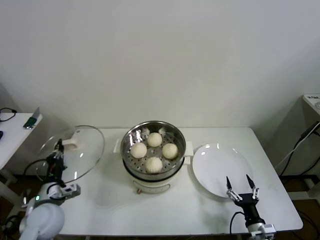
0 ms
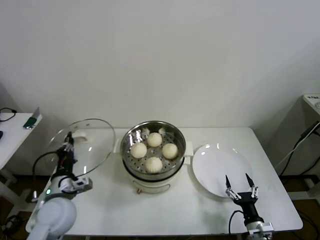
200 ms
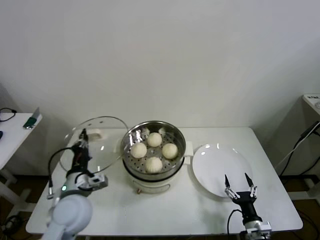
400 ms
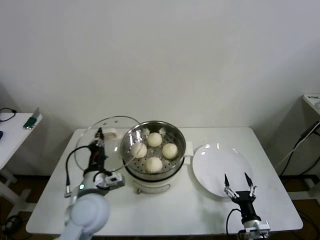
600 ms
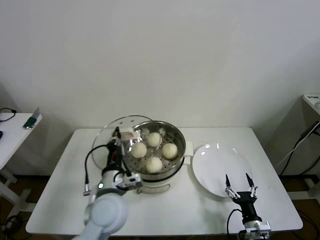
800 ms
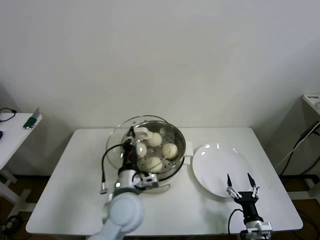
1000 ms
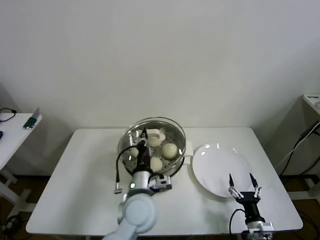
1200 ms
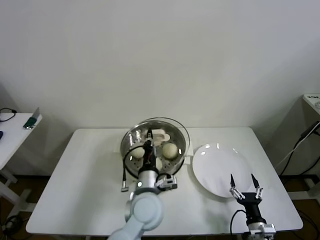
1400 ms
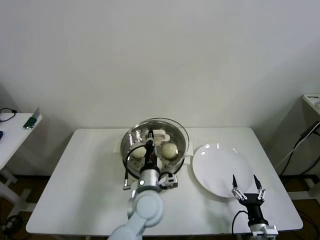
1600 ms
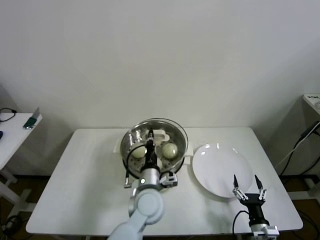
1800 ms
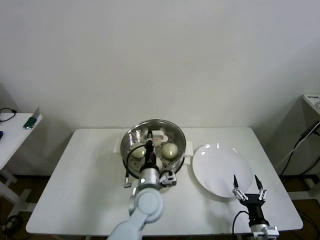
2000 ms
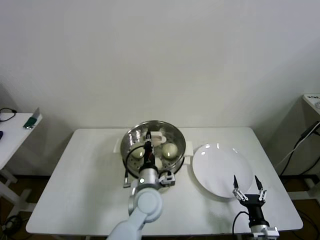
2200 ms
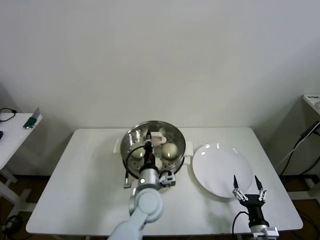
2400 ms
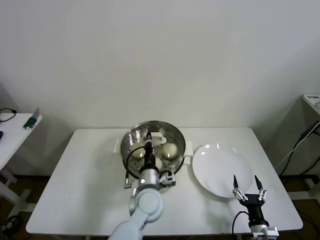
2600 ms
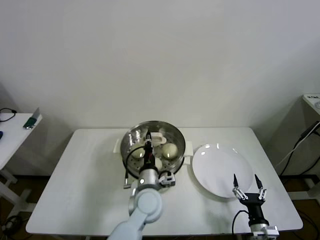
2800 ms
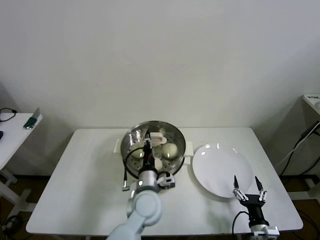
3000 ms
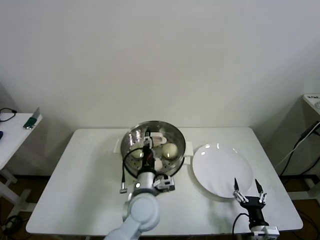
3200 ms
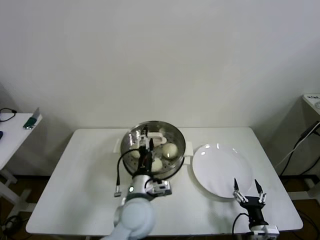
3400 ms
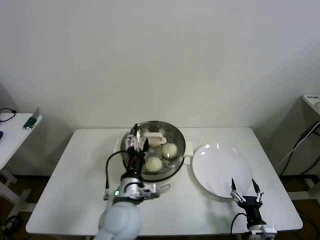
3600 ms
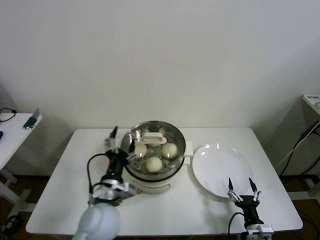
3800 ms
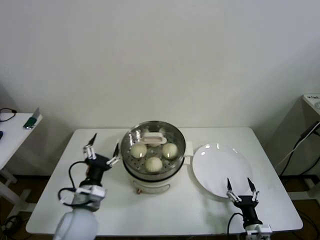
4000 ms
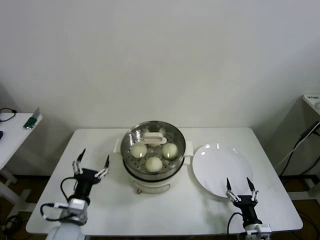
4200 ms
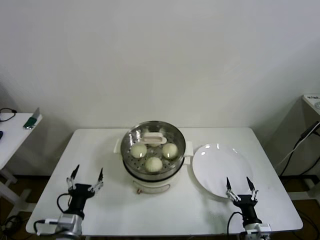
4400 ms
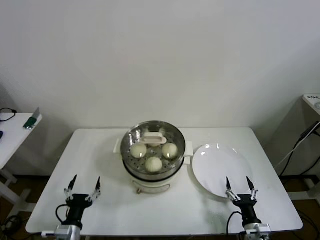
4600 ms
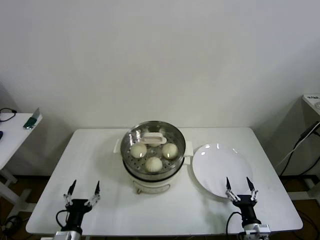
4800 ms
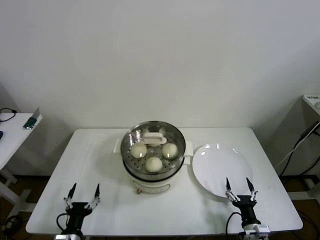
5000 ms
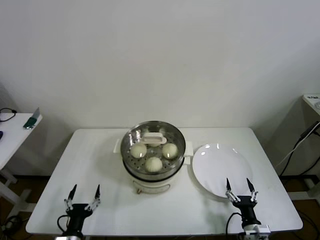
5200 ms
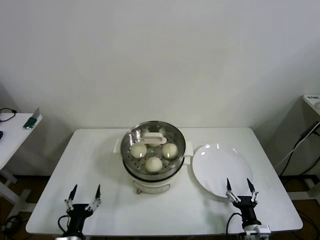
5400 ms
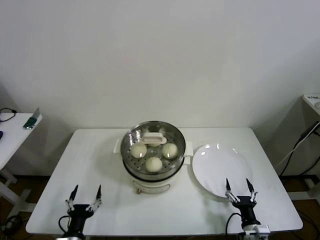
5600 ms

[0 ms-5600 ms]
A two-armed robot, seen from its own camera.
Step, 0 ms to 2800 ms: Place the pot lid on the steamer with left gripper.
0 ms to 1400 ms: The left gripper travels to the right by some 30 cm.
1400 ms to 2800 ms: The left gripper moves about 5 cm.
2800 ms to 4200 ms: The left gripper moves to the left and backward, roughly 25 cm, and opens.
4200 ms to 5600 ms: The left gripper heads downward and backward, covering approximately 15 cm.

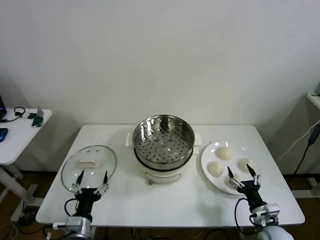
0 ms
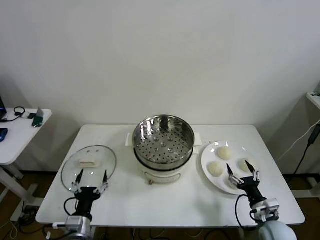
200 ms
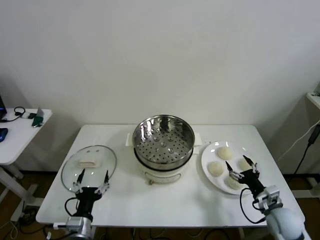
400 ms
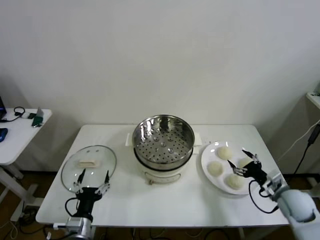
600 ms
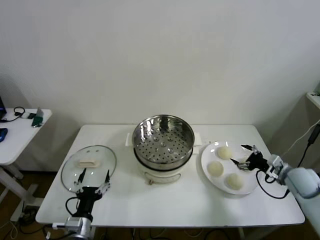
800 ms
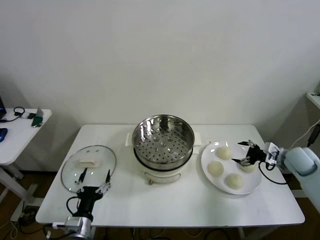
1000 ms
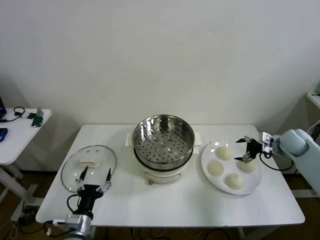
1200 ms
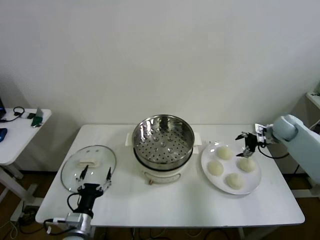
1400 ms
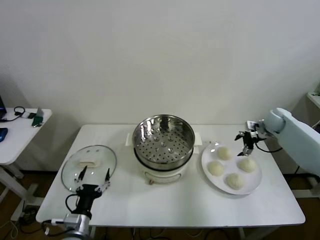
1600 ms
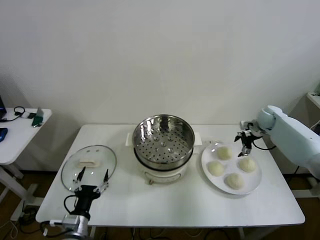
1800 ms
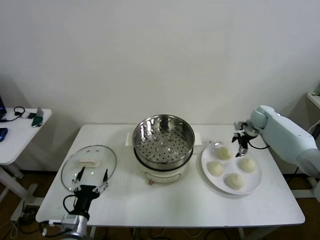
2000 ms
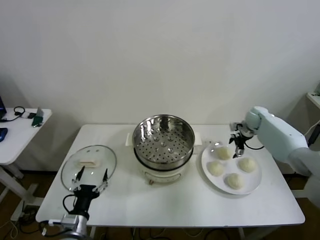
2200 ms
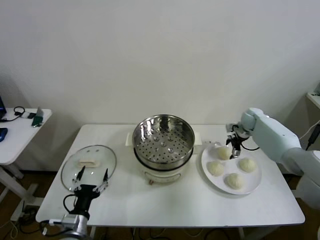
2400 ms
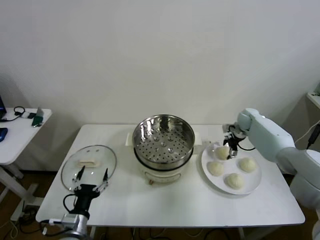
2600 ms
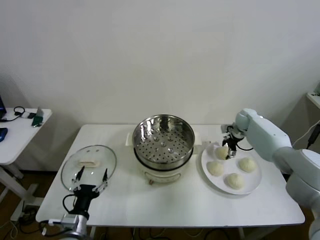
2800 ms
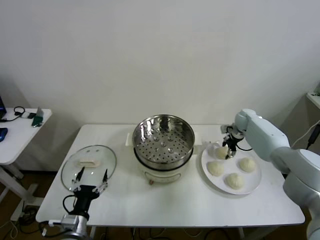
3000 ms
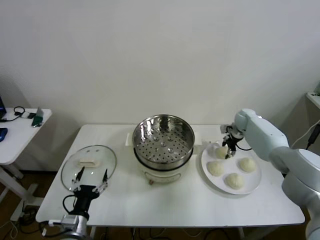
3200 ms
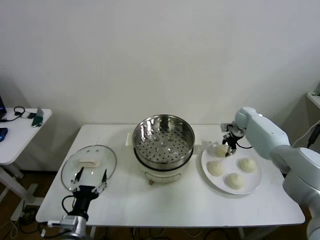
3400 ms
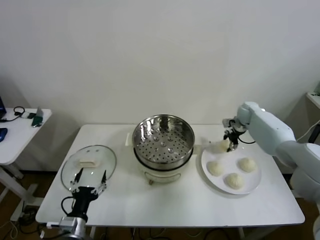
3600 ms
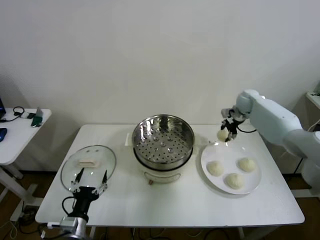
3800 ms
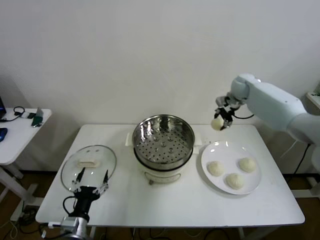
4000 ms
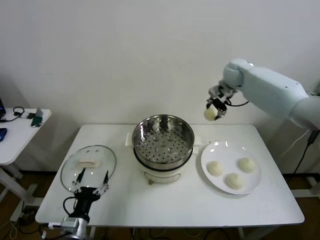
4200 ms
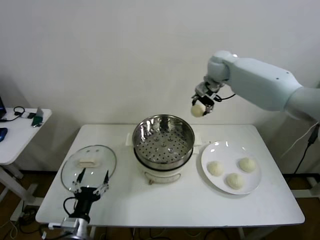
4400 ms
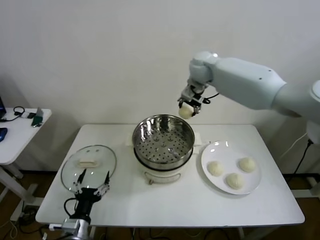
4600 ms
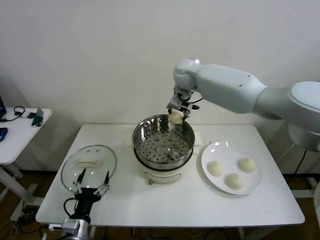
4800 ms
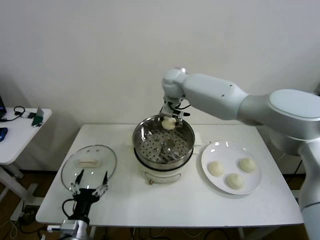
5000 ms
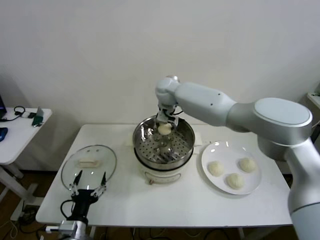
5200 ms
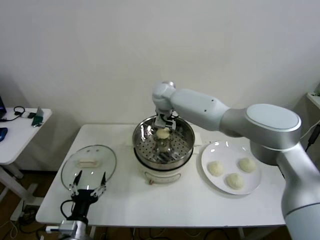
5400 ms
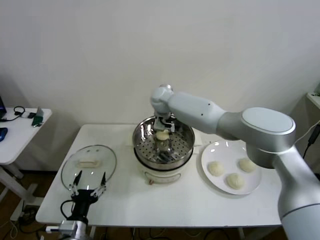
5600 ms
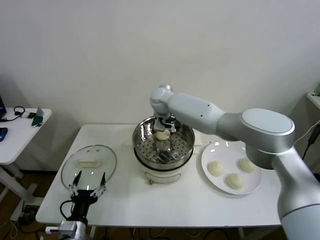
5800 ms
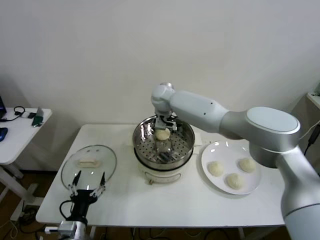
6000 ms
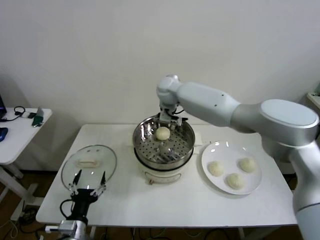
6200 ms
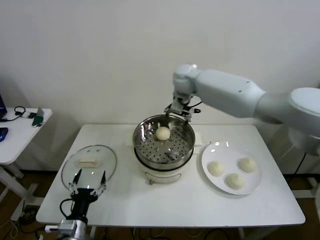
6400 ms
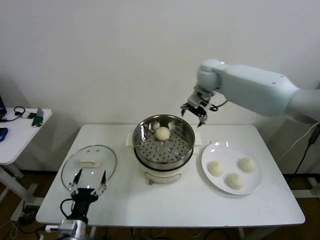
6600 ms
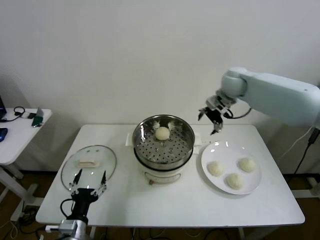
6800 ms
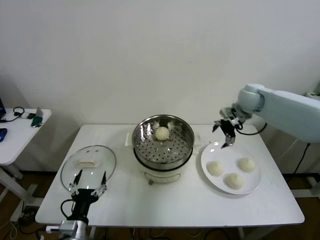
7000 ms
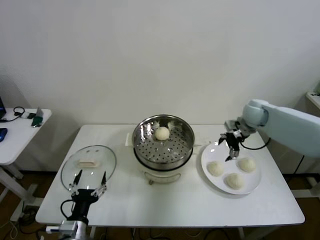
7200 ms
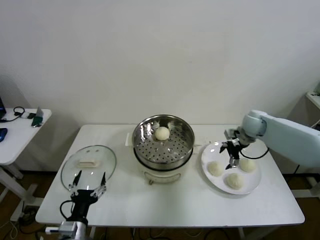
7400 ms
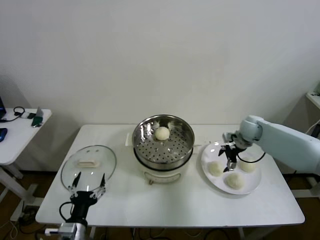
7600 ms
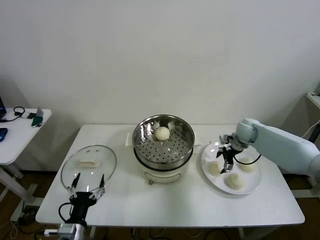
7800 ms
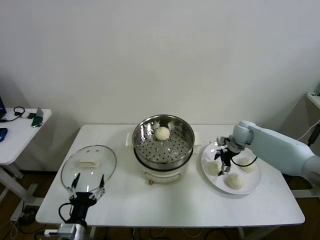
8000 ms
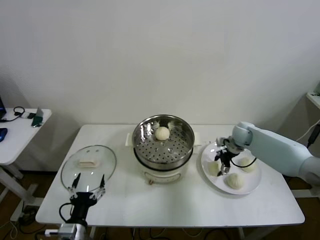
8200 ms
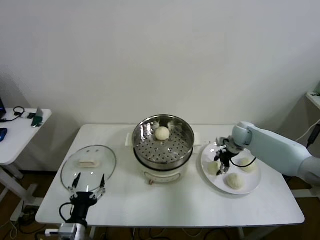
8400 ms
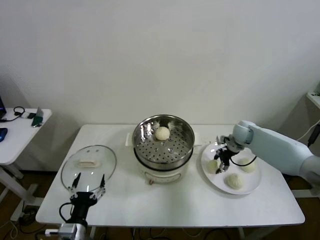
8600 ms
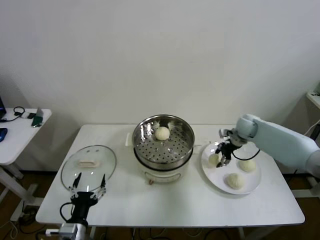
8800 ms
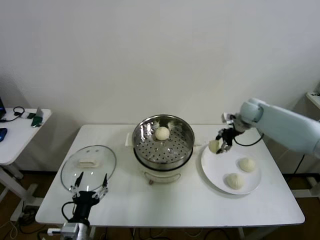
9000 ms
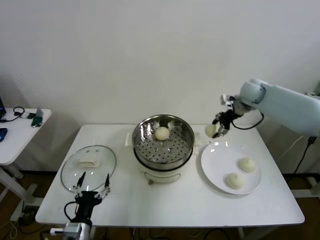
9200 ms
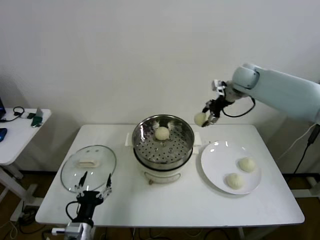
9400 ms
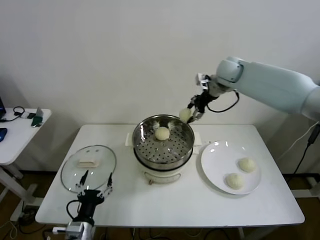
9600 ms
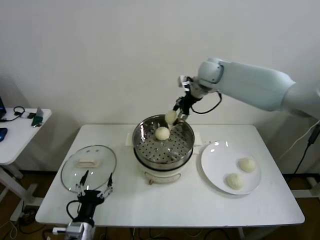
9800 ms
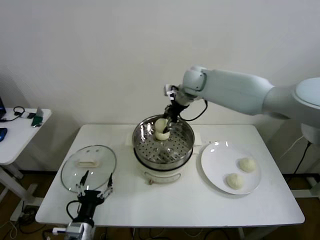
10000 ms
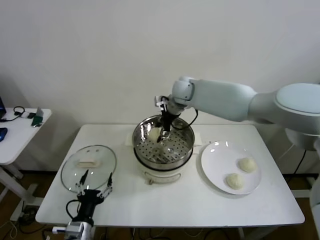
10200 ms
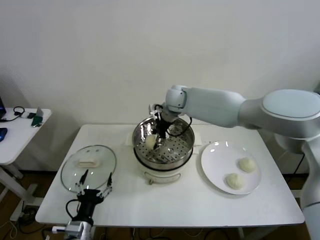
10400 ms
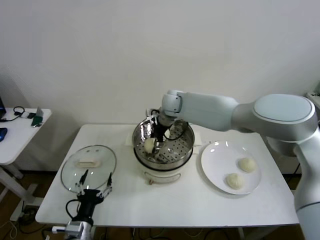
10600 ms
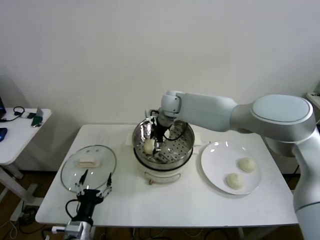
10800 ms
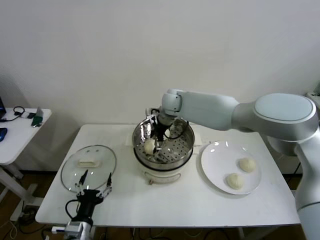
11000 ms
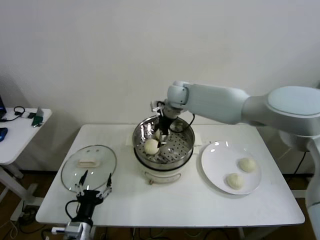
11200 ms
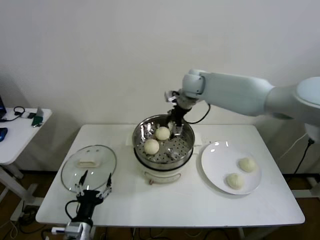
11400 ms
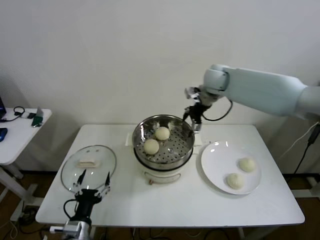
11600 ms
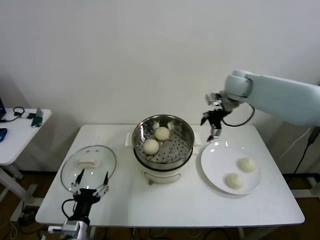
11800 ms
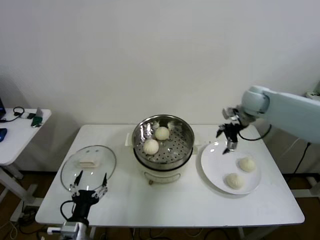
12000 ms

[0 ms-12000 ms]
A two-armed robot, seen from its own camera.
Step, 0 ms to 3000 ms: Grasp the baozi in the plate with right gripper.
Step, 3200 ms to 5800 ms: Place the baozi on the steamer with right gripper.
Step, 6000 ms to 8400 ms: Grasp the baozi in the plate with right gripper.
Step, 8600 ms to 10800 ms: Place the baozi on the steamer with right gripper.
1600 ms to 3000 ms: The right gripper travels to the left by approximately 5 cm, and closes up.
3000 ms to 4400 ms: The right gripper heads upward and to the left, covering some 35 cm.
4400 ms to 6000 ms: The right gripper travels to the left and downward by about 15 cm, and opens.
6000 ms to 7600 ms: The right gripper heads to the right and downward, covering some 35 cm.
7600 ms to 9000 ms: The right gripper shifts approximately 10 cm upward, and closes up.
9000 ms to 10400 ms: The right gripper moves to the left, approximately 30 cm.
10400 ms to 12000 ms: The right gripper is displaced to the right by some 30 cm, and opens.

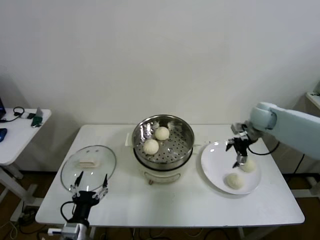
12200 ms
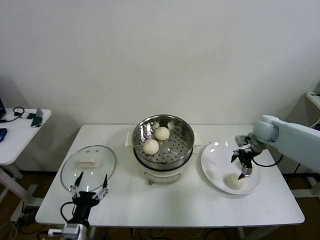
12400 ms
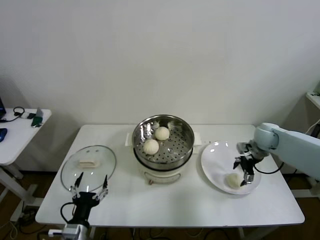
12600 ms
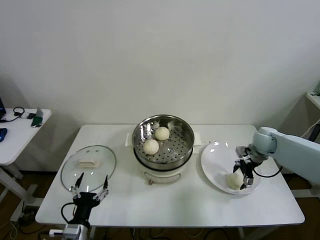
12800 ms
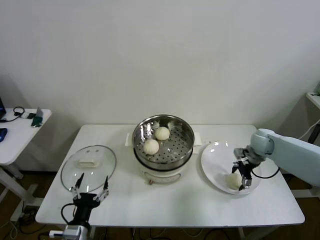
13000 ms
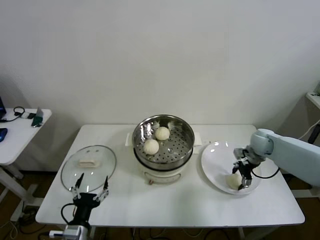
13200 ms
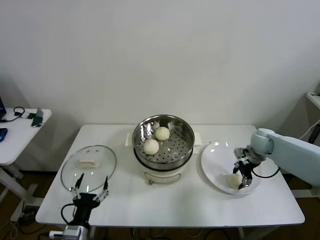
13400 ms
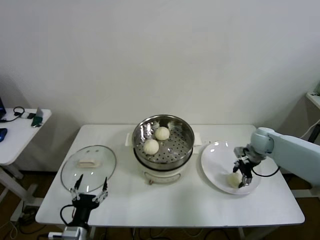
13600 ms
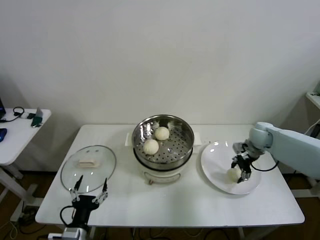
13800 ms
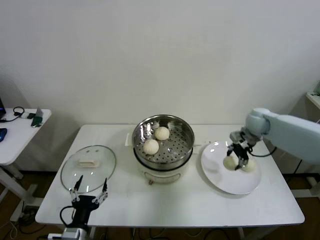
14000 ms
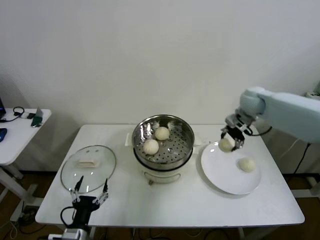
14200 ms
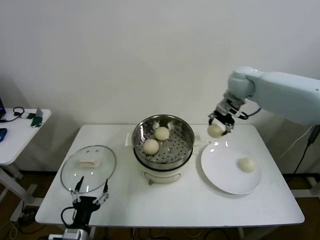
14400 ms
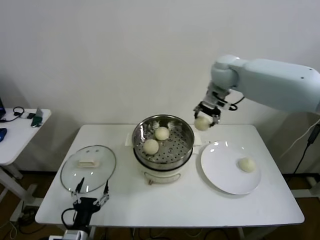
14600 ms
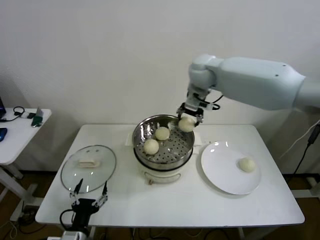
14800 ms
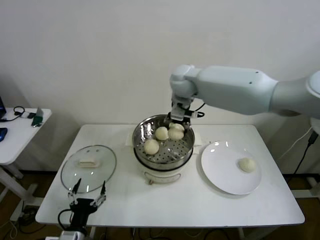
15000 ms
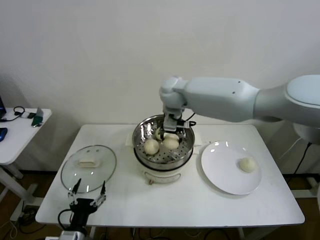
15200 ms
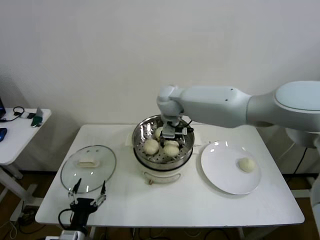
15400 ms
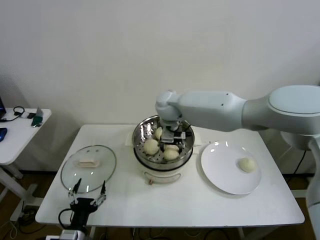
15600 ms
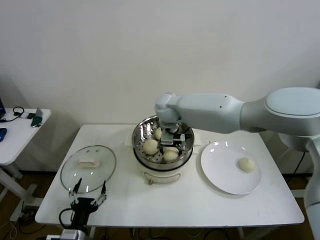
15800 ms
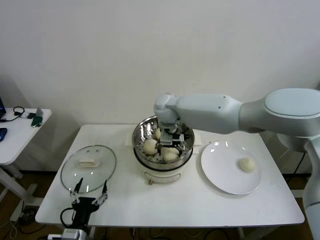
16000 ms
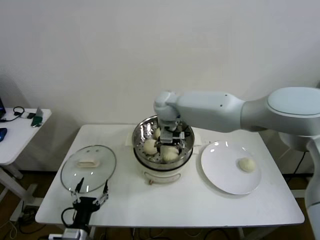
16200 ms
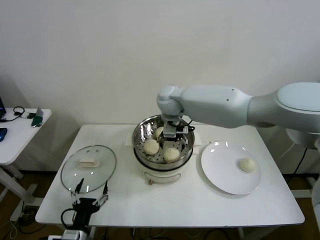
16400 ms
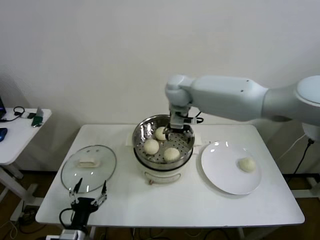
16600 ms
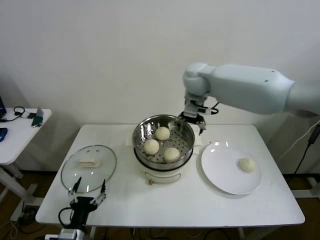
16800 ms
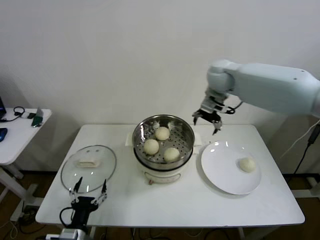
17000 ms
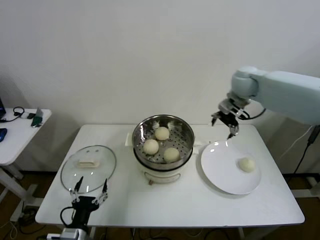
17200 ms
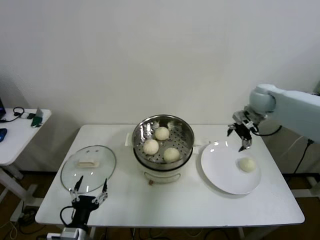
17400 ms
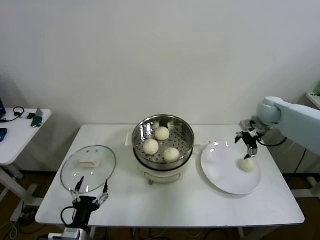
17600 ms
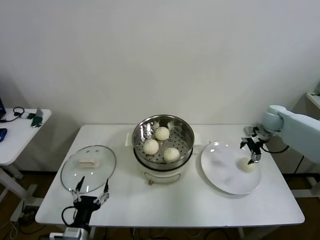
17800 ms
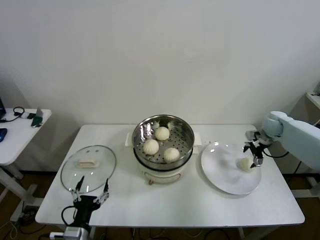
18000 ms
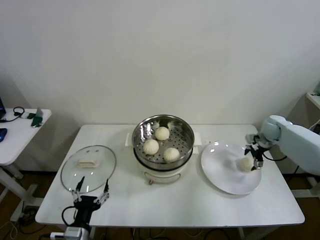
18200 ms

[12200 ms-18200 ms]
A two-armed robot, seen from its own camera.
Step, 12200 ms to 13400 ms: Grasp the baozi in the plate with right gripper.
Step, 13600 ms to 16200 ms: Place the baozi on the steamer with right gripper.
12200 ms to 13800 ms: The right gripper closes its fingers.
13800 ms to 15200 ms: The right gripper shifts approximately 35 cm to the left and upward.
15200 ms to 16600 ms: The right gripper changes place by roughly 5 cm, and opens its fingers.
16600 ms to 18200 ms: The right gripper moves to the right and downward, some 40 cm.
